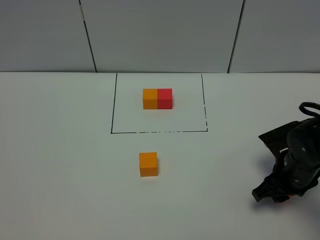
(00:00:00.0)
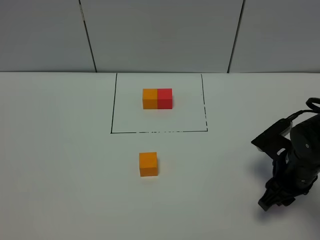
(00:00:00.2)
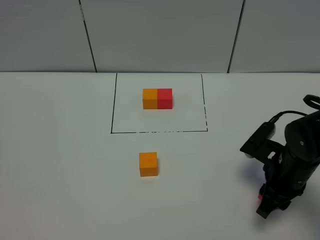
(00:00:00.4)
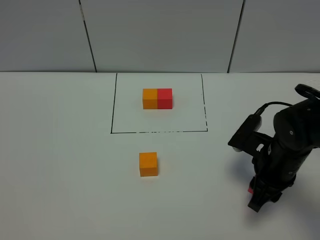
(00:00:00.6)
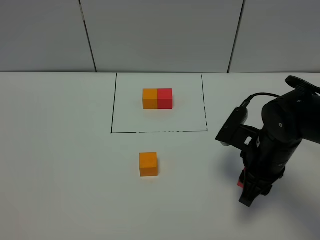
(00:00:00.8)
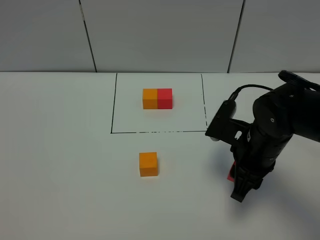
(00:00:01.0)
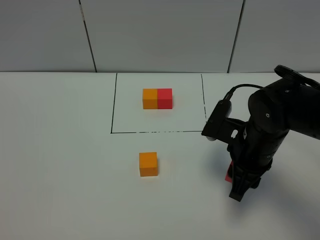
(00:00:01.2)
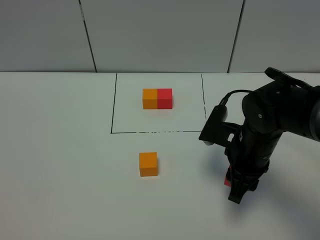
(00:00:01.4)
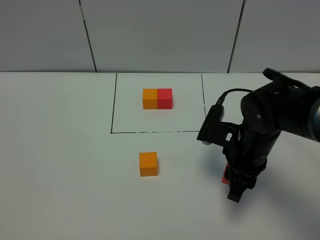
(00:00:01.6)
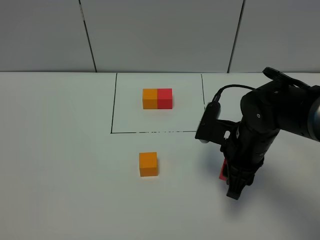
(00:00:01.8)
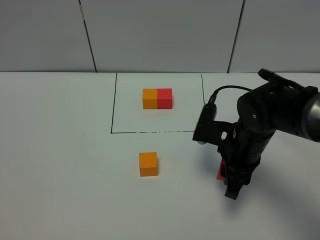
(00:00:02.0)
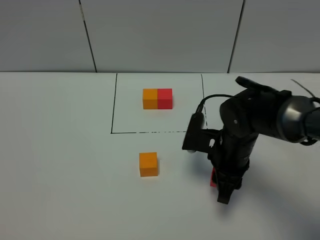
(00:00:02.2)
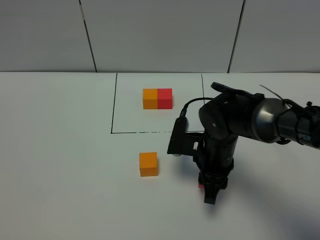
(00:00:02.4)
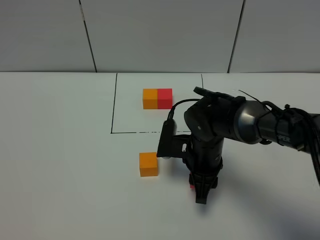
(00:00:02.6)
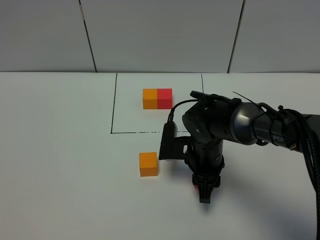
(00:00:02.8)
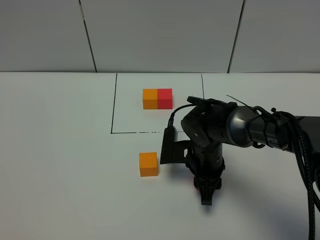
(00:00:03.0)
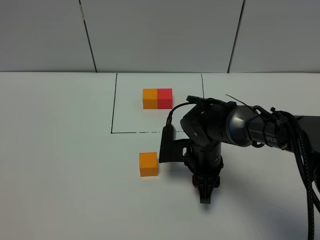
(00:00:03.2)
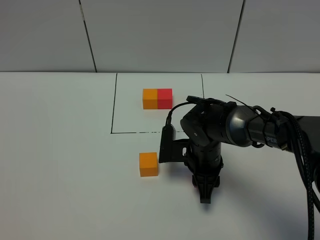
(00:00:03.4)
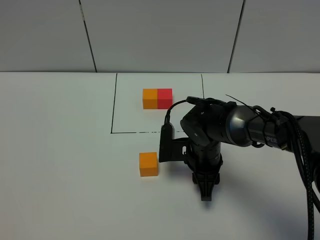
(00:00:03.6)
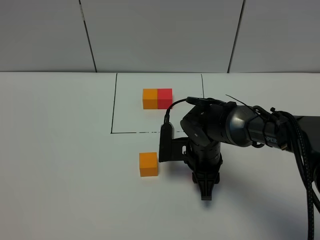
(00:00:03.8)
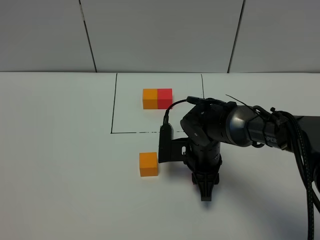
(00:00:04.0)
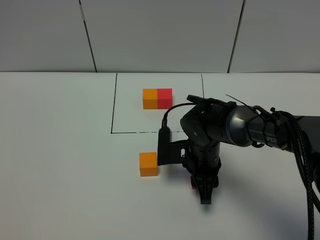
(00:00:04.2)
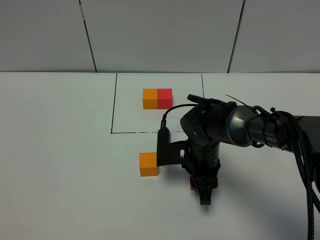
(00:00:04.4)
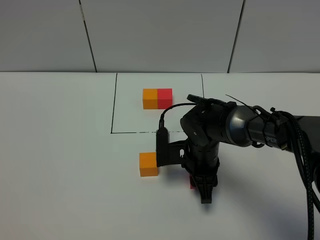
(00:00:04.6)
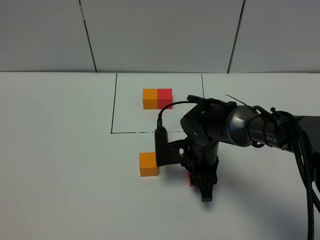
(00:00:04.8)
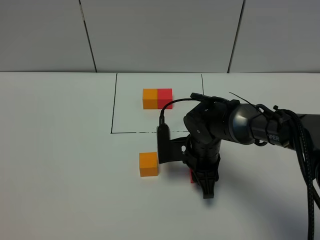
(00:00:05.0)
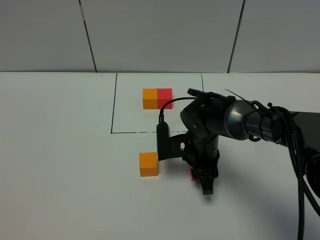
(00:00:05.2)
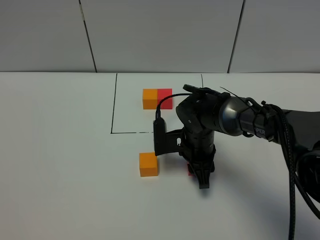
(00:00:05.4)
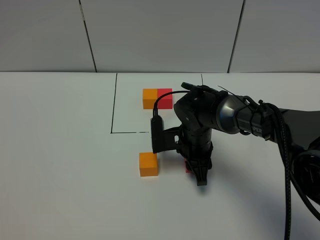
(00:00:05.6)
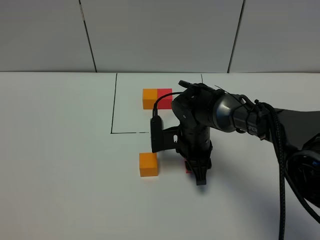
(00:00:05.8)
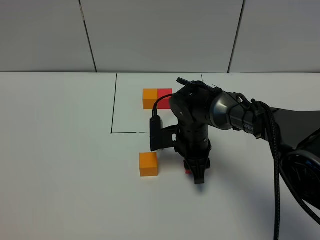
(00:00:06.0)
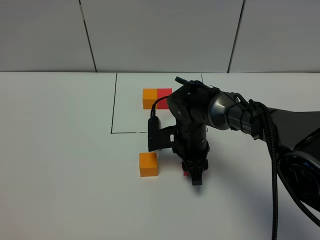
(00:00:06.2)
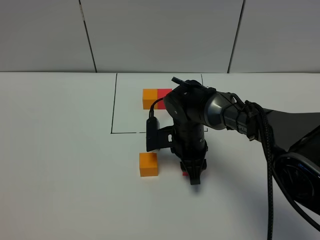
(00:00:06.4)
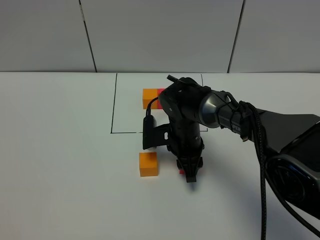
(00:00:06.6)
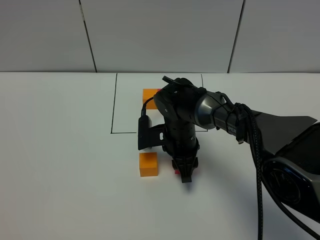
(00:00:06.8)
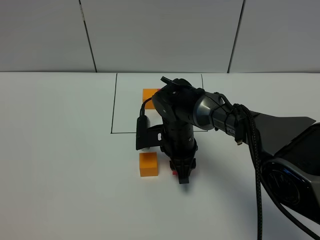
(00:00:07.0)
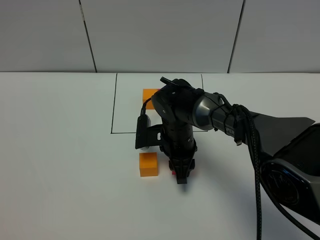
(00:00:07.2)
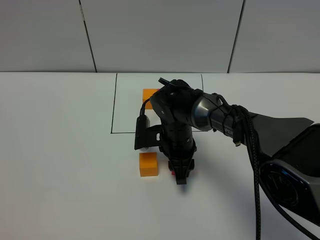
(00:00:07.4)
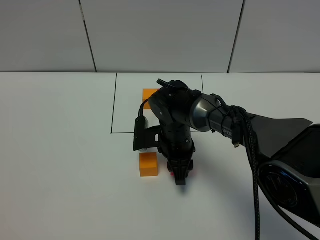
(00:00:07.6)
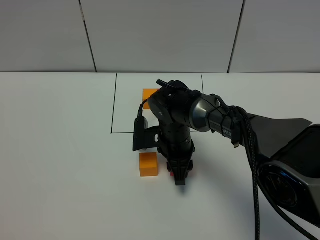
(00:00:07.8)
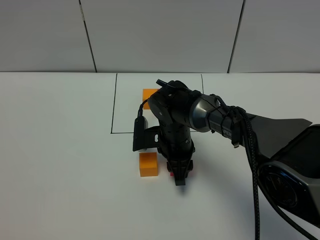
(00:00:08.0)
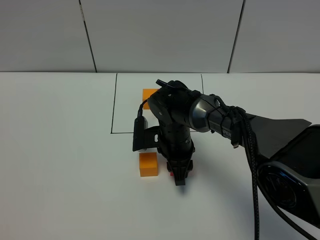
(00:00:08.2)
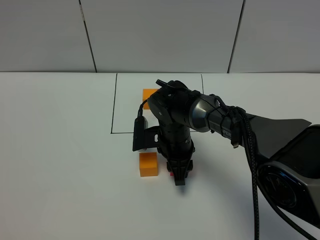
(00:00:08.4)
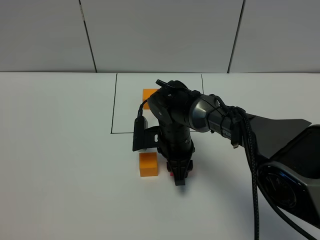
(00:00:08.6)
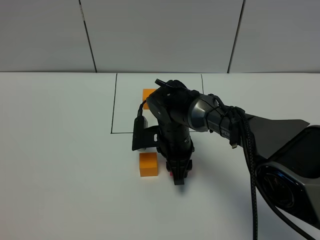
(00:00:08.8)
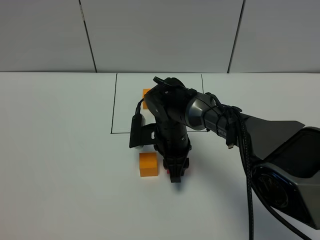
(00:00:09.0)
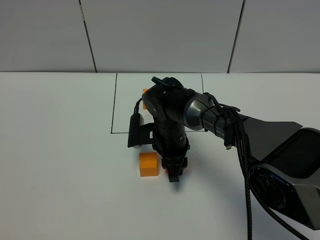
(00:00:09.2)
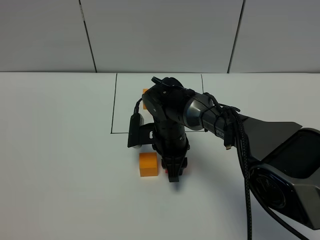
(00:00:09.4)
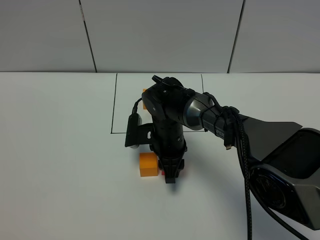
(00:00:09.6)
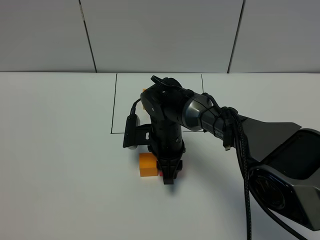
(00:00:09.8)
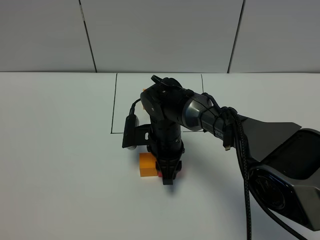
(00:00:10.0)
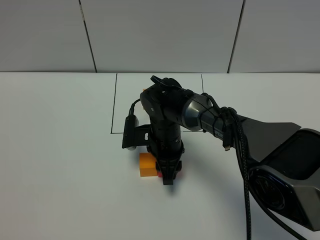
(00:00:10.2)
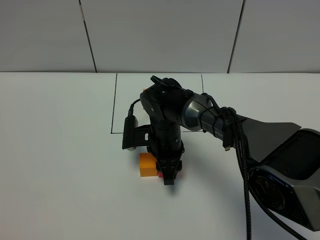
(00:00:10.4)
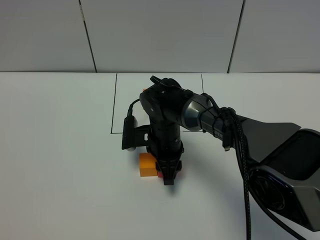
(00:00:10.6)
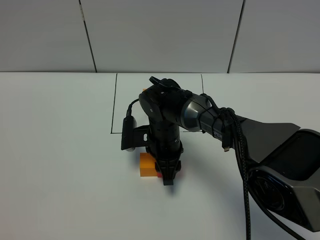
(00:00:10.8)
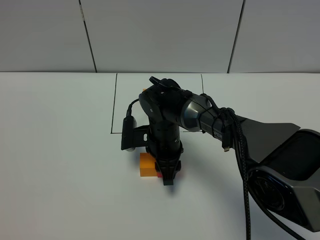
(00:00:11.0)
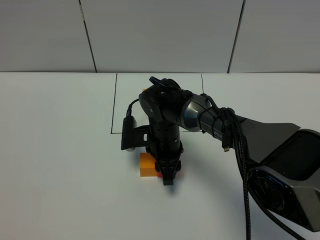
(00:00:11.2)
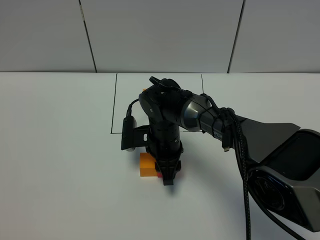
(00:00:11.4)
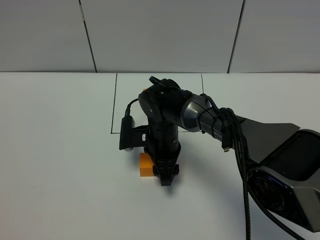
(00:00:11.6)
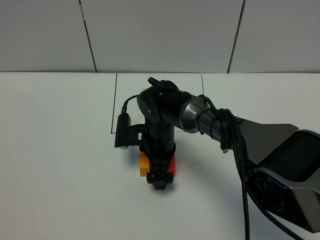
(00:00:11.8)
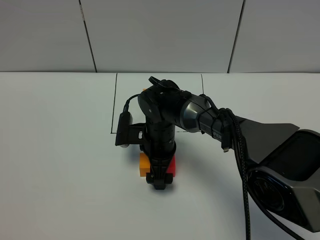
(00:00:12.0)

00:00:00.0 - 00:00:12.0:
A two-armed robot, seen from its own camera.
Task of the whole recording: According to the building block template in front, assemble the scattered blocks together.
00:00:00.0 - 00:00:01.6: The right gripper travels to the left and upward by some 10 cm.
00:00:01.6 - 00:00:03.0: The right gripper is displaced downward and to the left by roughly 10 cm.
00:00:03.0 - 00:00:06.0: The grippers stay close to where they were, moving slightly.
00:00:06.0 - 00:00:07.6: The grippers make only small movements.
00:00:07.6 - 00:00:09.0: Both grippers stay put.
00:00:09.0 - 00:00:10.4: Both grippers stay put.
00:00:10.4 - 00:00:12.0: The right gripper opens up.

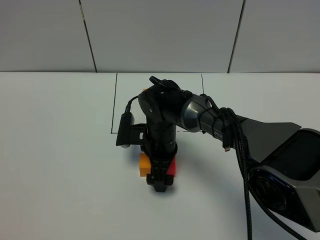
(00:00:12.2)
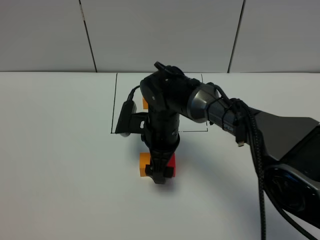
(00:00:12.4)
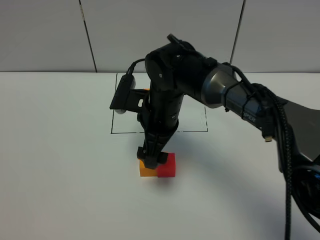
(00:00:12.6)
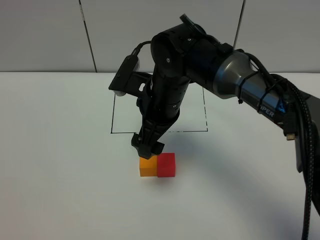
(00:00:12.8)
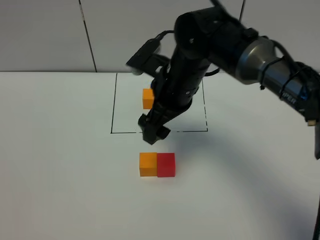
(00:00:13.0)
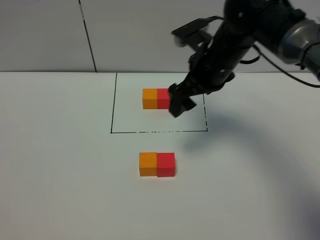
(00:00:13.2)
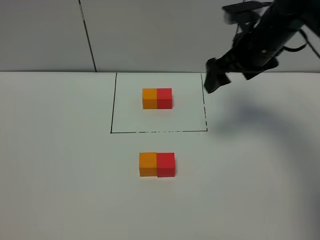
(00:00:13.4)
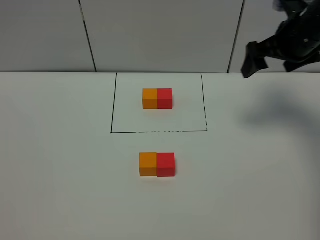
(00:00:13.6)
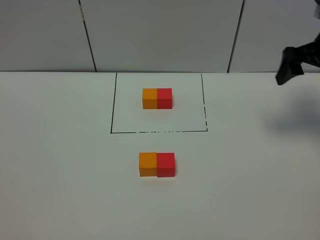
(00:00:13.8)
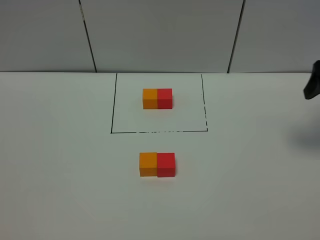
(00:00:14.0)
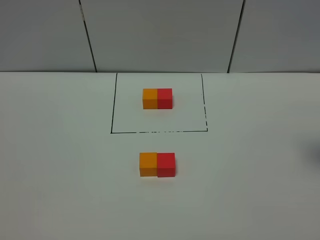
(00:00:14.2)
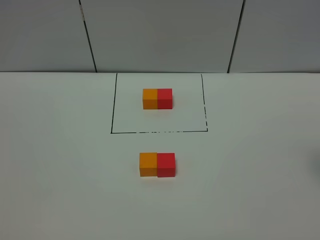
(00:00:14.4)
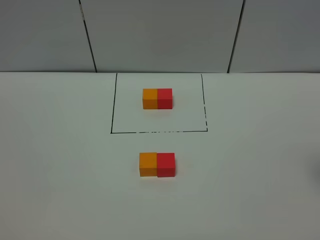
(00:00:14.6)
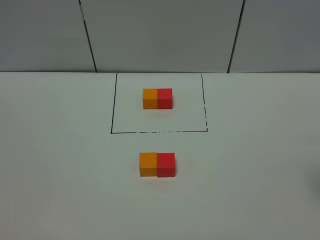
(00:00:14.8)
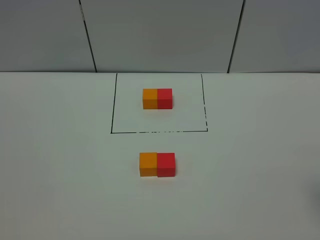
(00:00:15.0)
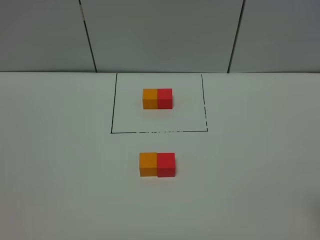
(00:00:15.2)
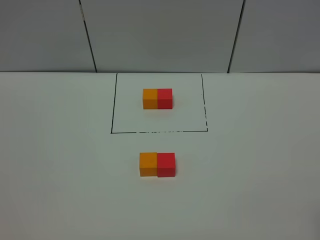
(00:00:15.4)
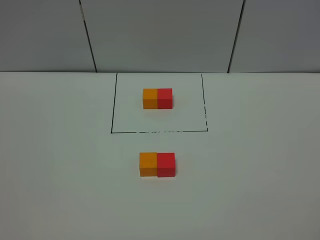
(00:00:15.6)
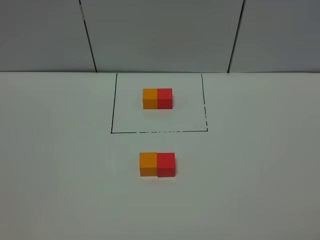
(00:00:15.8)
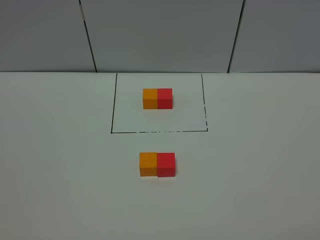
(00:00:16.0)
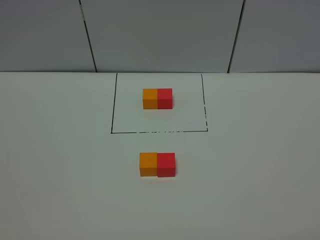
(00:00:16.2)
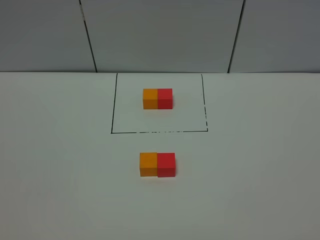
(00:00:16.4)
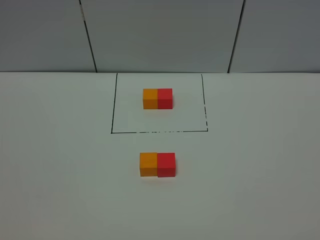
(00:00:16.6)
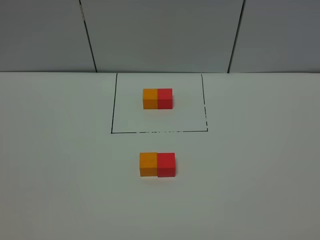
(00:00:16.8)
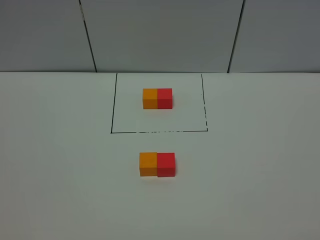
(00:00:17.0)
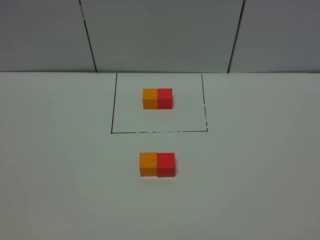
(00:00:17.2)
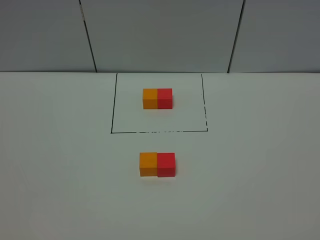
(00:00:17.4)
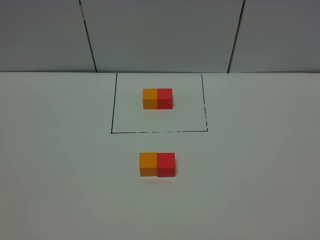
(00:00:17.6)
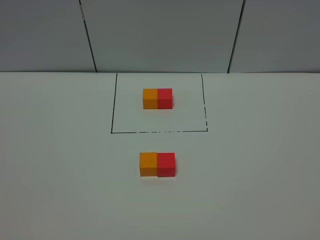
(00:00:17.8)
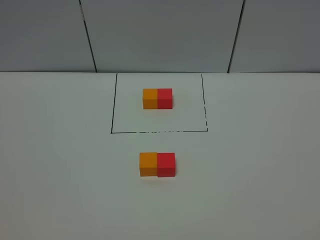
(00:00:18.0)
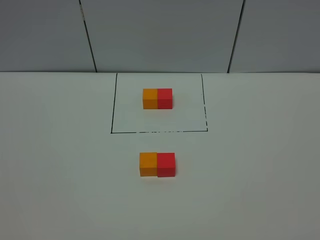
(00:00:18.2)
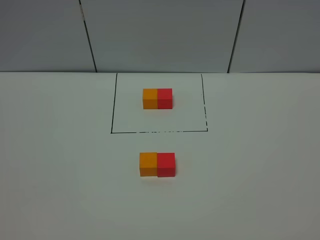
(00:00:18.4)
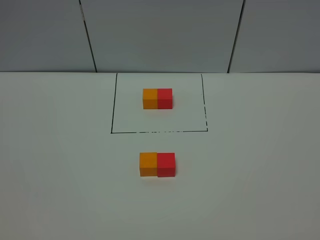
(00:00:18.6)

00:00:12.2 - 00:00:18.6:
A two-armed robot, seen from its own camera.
Task of the whole recording: According to the building block template in front, assemble the scattered blocks together.
00:00:12.2 - 00:00:13.8: The right gripper moves to the right and upward, roughly 35 cm.
00:00:13.8 - 00:00:15.4: The right gripper moves backward, some 30 cm.
00:00:17.0 - 00:00:18.6: Neither gripper changes place.
